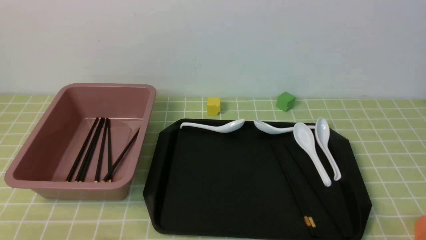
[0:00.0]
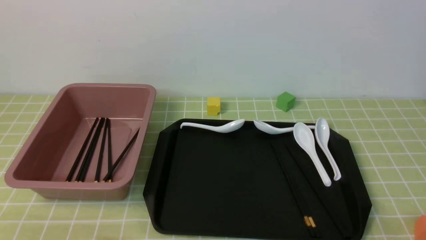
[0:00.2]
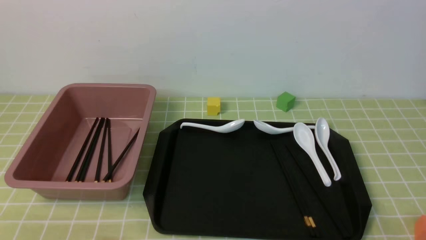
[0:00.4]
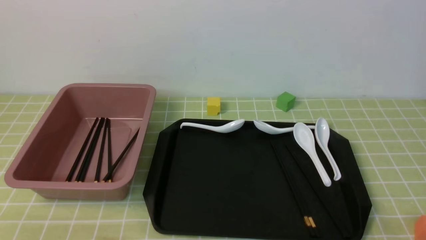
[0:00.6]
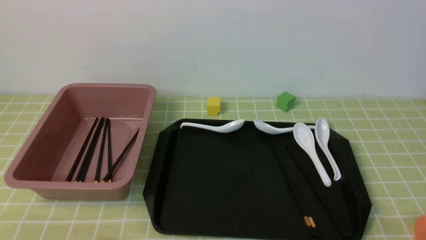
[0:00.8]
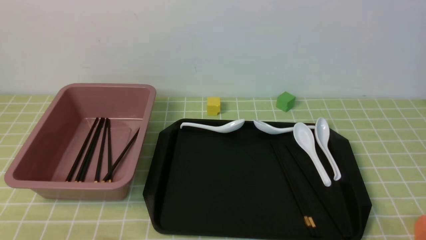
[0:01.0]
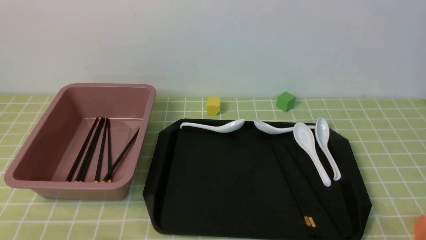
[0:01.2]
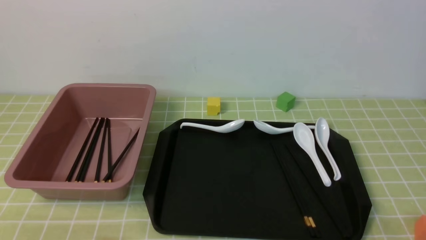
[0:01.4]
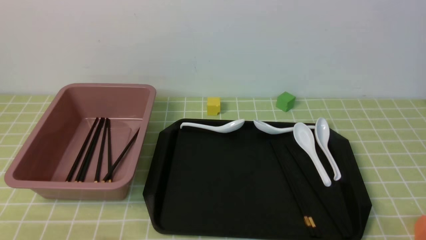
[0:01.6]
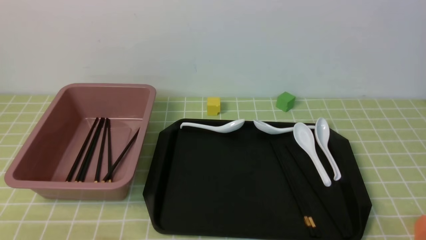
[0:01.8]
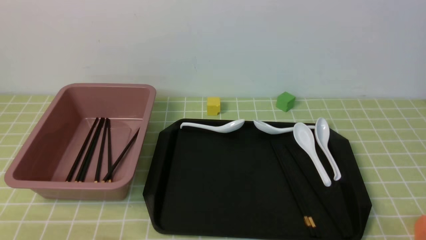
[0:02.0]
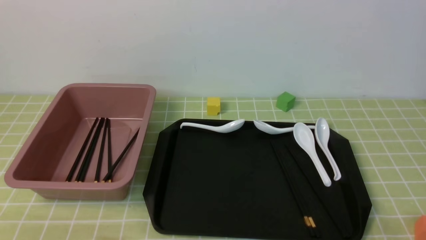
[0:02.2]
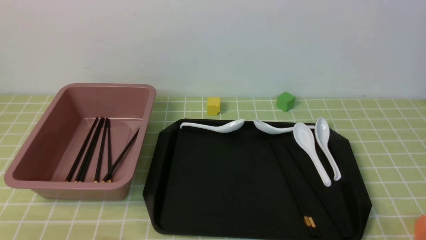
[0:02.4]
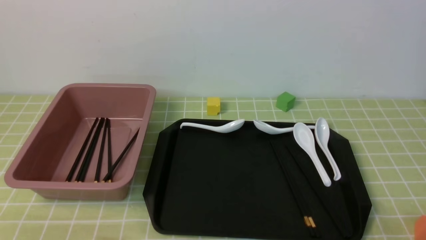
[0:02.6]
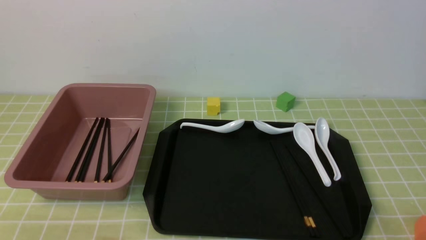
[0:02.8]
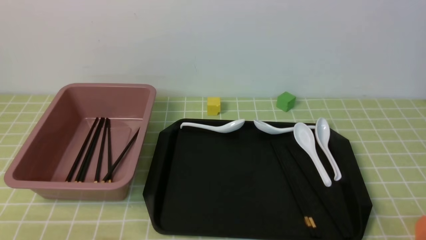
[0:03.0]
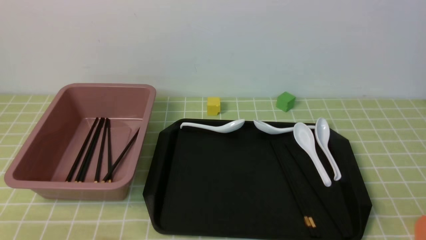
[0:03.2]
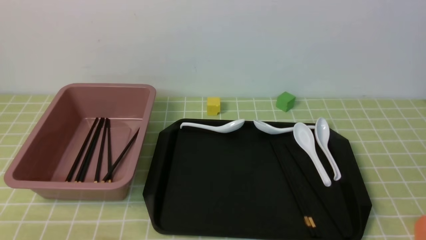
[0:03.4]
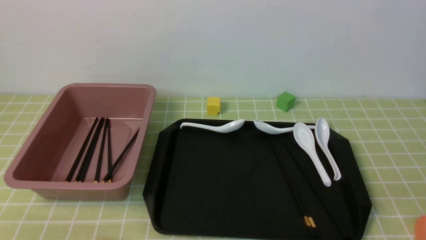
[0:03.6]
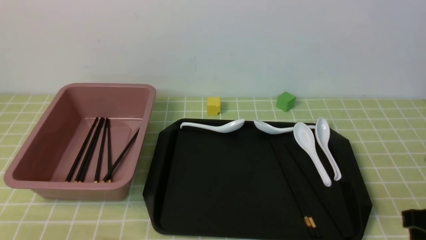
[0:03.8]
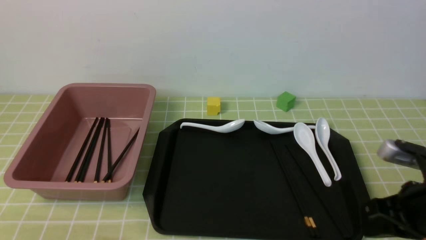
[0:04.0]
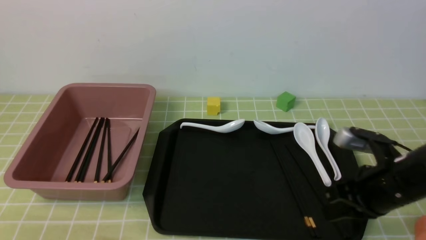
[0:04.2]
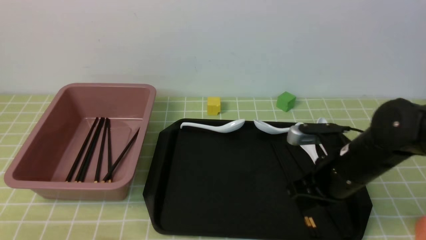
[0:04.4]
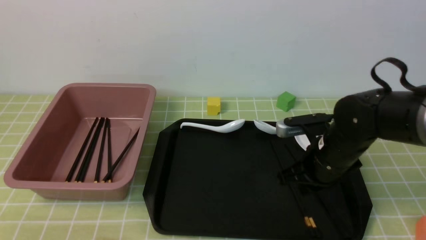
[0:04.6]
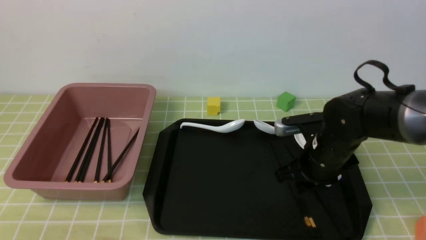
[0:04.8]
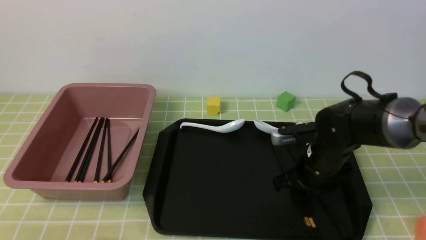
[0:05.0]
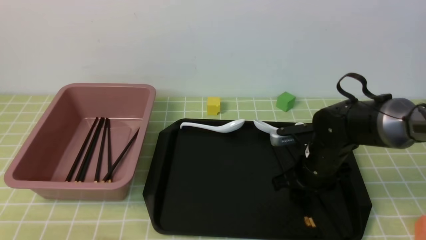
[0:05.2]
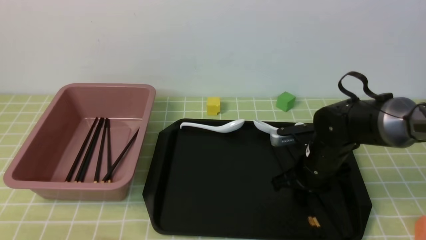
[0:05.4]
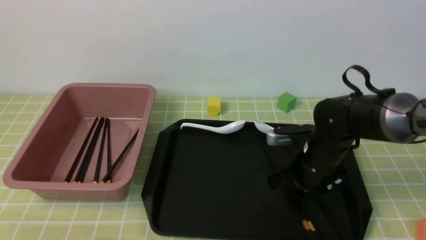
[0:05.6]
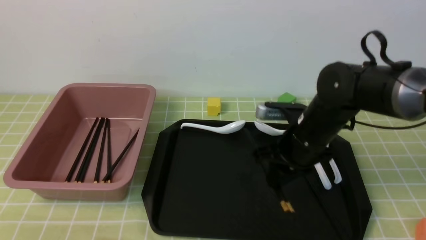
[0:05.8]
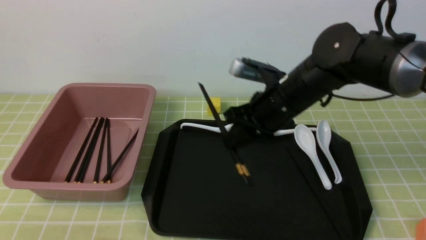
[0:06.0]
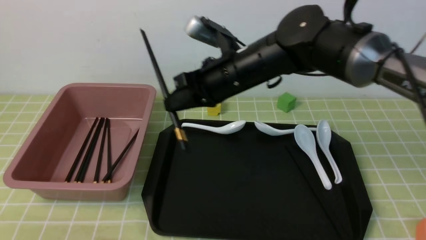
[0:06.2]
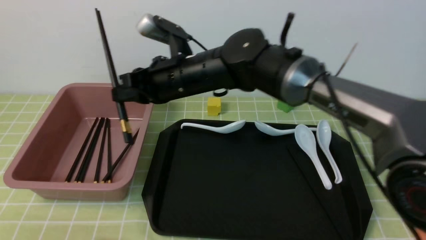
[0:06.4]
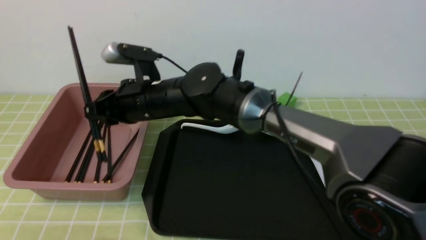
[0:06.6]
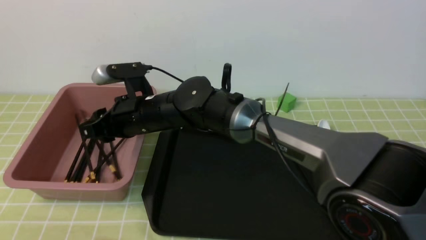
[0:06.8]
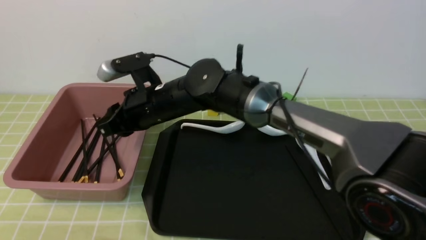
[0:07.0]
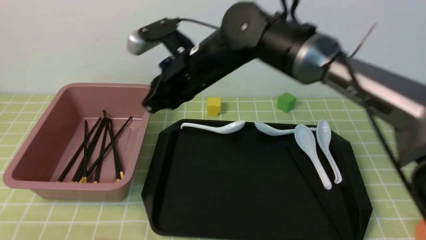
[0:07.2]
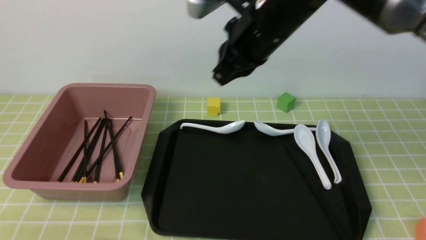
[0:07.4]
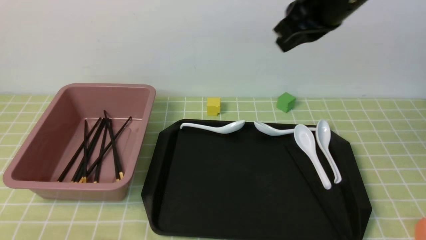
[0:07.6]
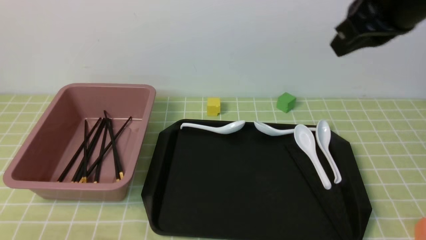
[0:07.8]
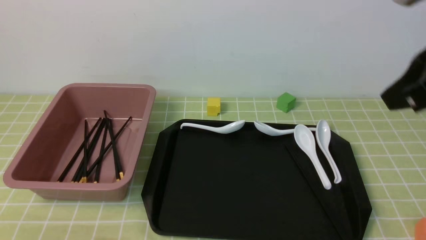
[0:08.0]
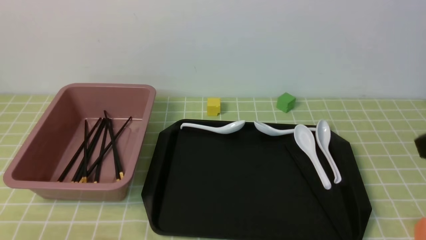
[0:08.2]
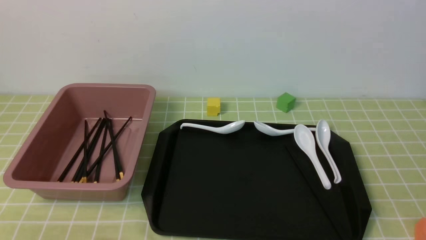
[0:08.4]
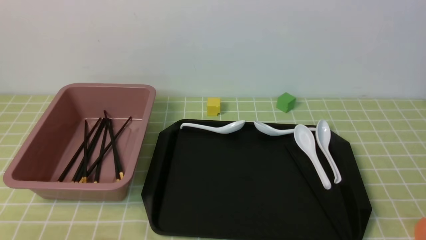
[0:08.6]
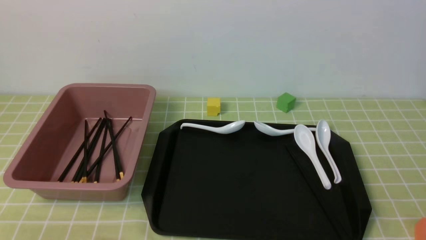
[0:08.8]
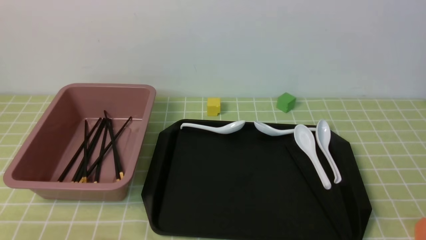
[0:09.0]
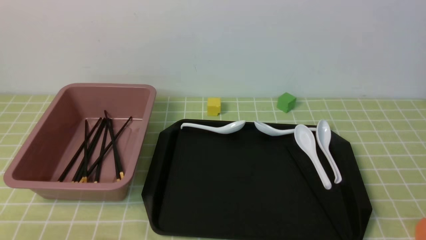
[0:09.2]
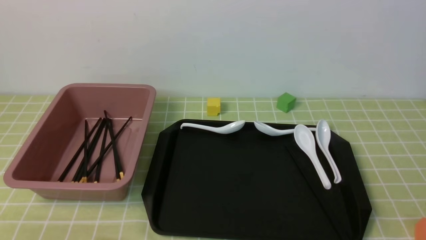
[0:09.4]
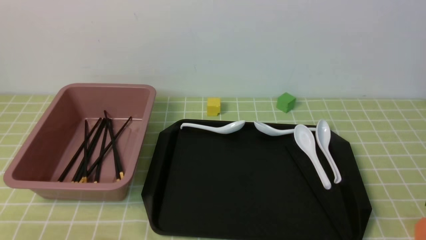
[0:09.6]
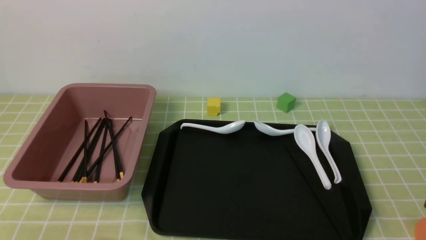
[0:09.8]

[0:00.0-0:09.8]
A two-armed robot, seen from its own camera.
Step, 0:00.0 to 0:05.8: use the right arm to grab a pair of chopsticks.
Step, 0:06.0 to 0:07.0: use the right arm to put the chopsticks into the lunch box.
0:00.0 to 0:01.4: The two grippers keep their place.
0:02.8 to 0:04.2: The right gripper travels forward by about 20 cm, and closes its fingers.
0:04.2 to 0:05.6: The right gripper goes some 10 cm forward and to the left, and opens up.
0:05.6 to 0:07.0: The right gripper moves to the left and upward, approximately 25 cm.
0:07.0 to 0:08.4: The right gripper heads to the right and backward, covering some 40 cm, and closes.

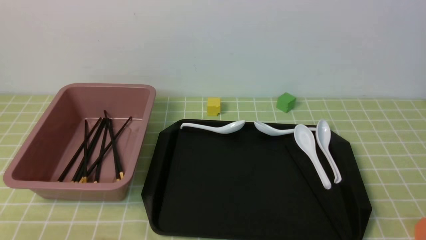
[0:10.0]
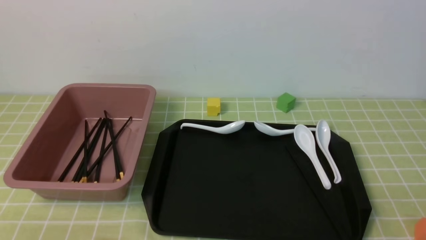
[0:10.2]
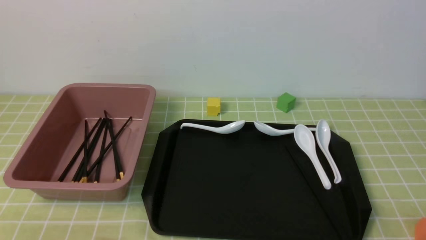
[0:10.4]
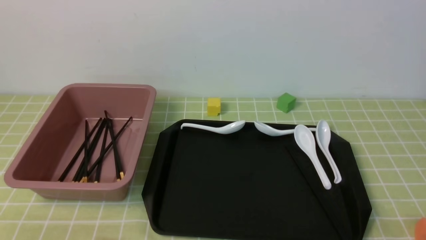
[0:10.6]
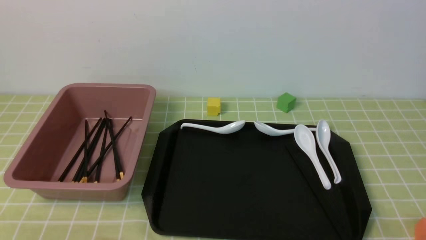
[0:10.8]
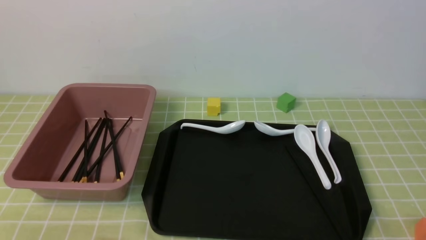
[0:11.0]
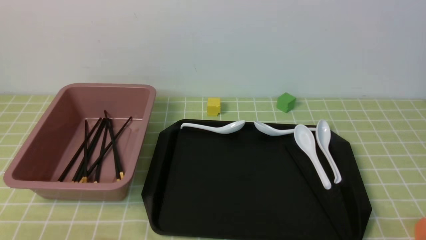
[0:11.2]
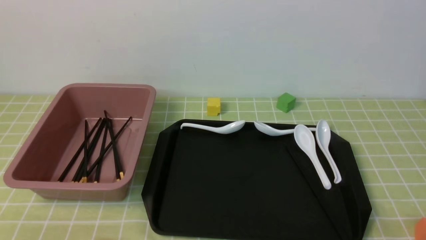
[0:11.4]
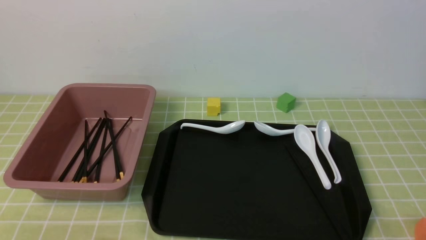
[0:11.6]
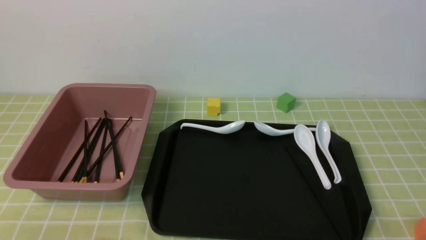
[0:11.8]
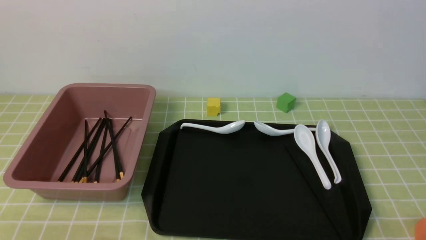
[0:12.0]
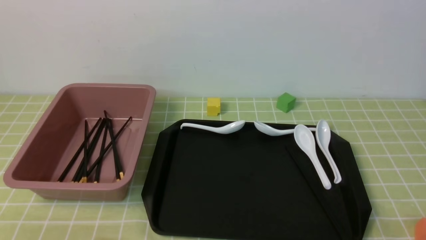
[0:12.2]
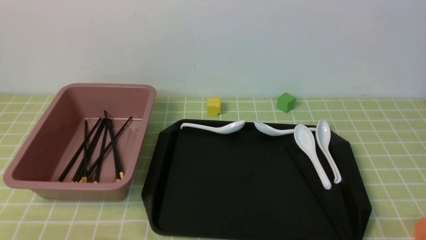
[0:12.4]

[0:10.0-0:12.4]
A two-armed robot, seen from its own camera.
0:11.2 to 0:12.4: Both grippers stay about where they are.
